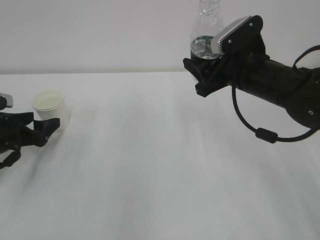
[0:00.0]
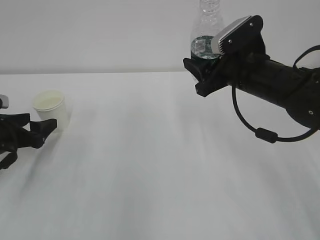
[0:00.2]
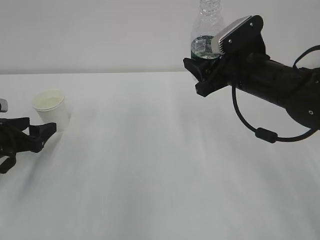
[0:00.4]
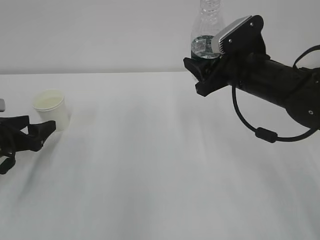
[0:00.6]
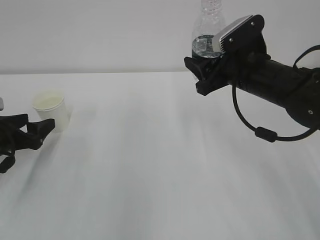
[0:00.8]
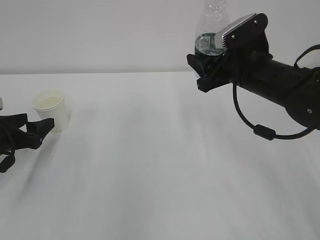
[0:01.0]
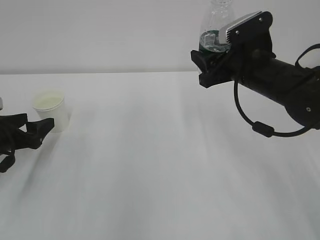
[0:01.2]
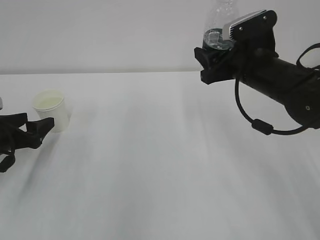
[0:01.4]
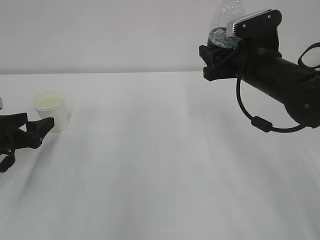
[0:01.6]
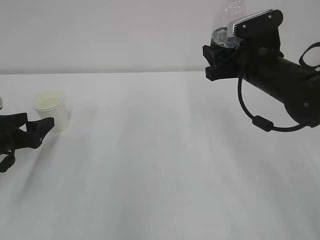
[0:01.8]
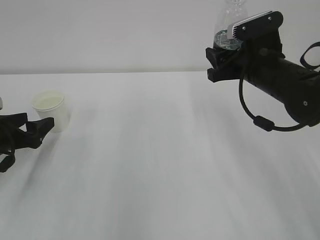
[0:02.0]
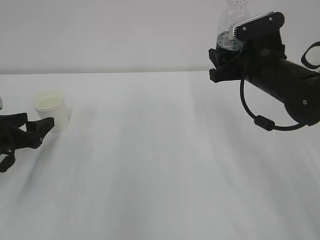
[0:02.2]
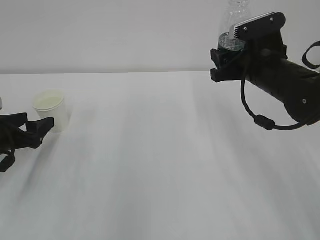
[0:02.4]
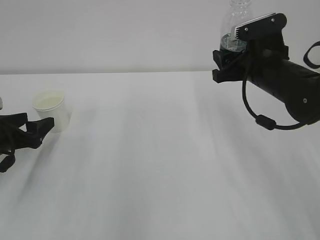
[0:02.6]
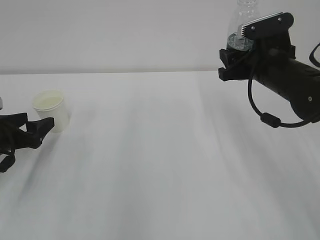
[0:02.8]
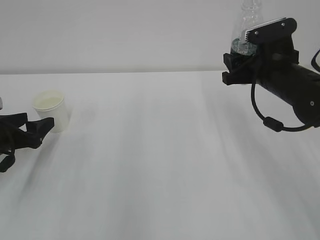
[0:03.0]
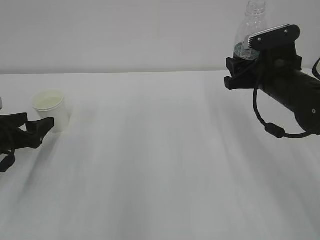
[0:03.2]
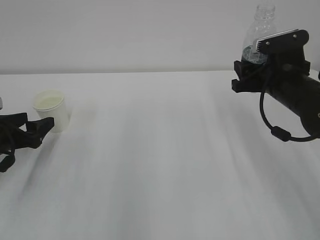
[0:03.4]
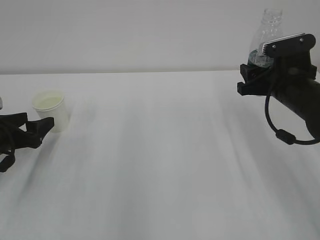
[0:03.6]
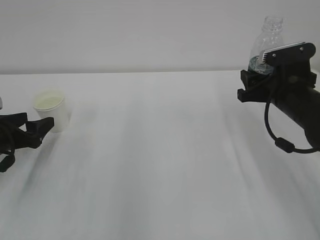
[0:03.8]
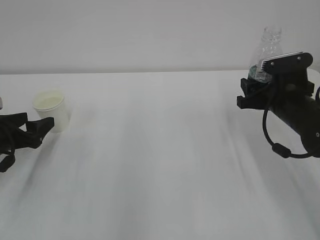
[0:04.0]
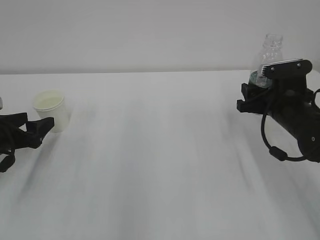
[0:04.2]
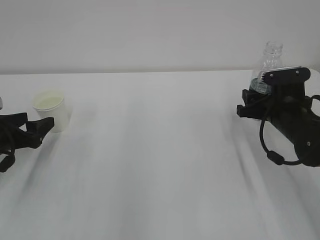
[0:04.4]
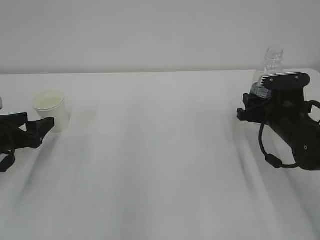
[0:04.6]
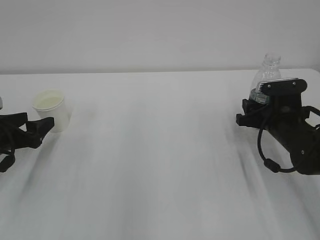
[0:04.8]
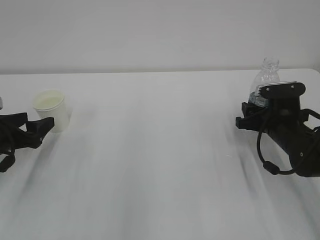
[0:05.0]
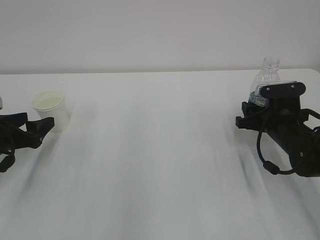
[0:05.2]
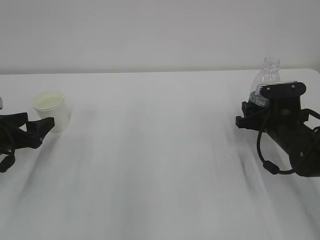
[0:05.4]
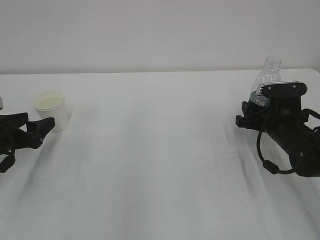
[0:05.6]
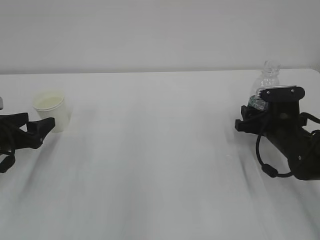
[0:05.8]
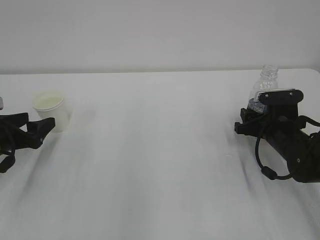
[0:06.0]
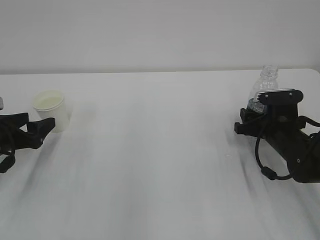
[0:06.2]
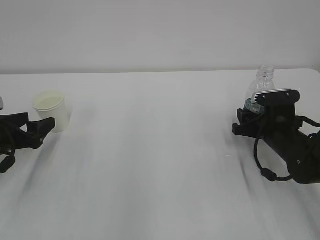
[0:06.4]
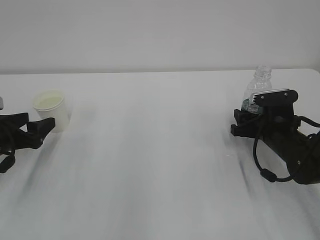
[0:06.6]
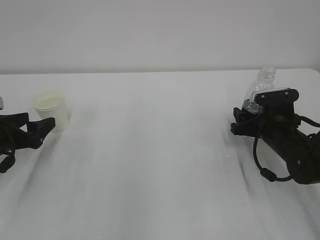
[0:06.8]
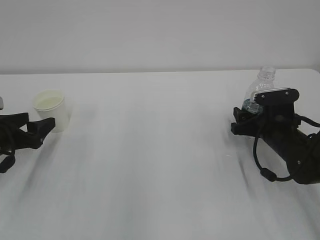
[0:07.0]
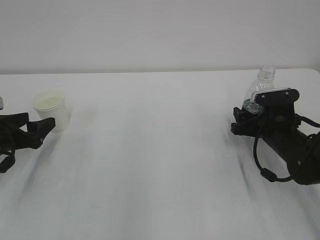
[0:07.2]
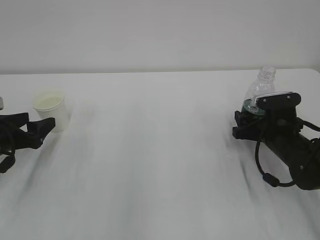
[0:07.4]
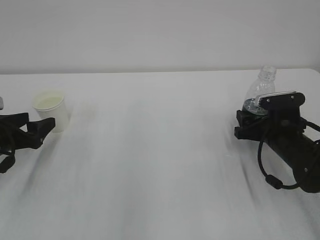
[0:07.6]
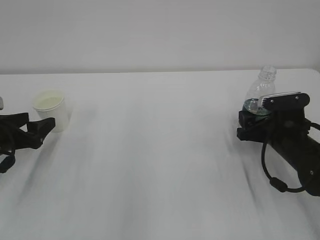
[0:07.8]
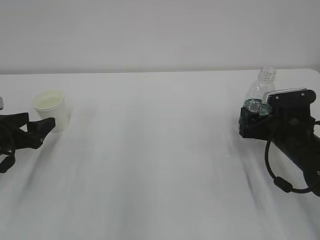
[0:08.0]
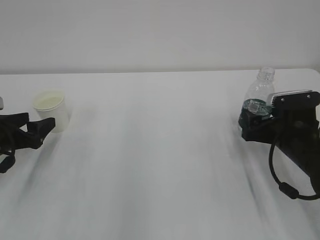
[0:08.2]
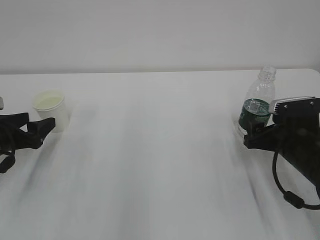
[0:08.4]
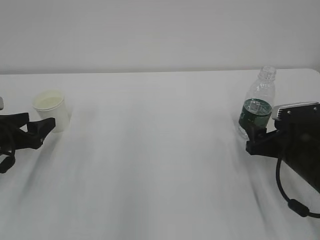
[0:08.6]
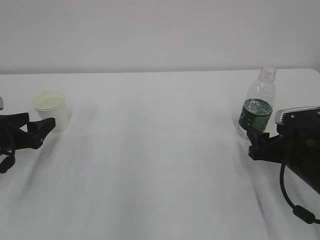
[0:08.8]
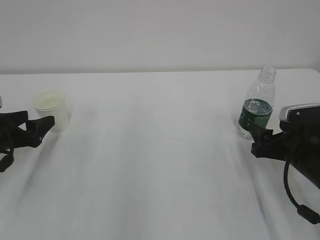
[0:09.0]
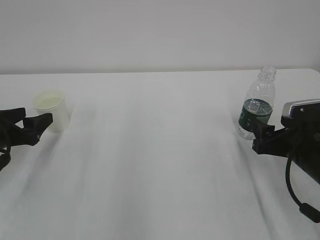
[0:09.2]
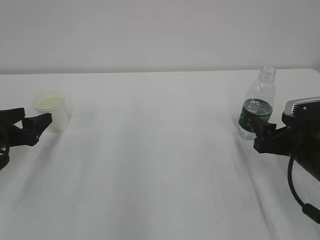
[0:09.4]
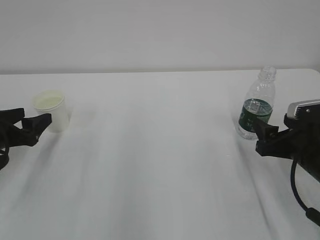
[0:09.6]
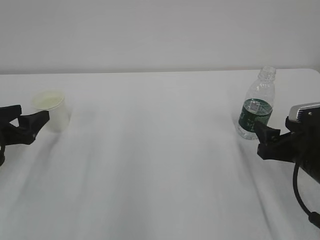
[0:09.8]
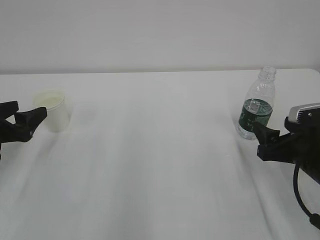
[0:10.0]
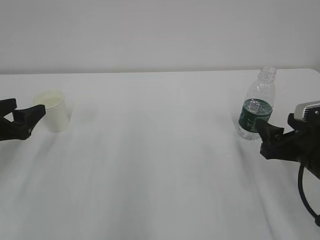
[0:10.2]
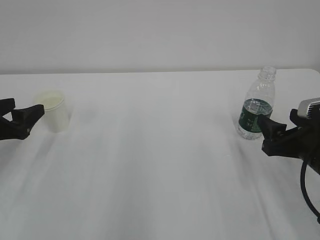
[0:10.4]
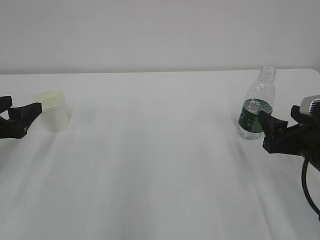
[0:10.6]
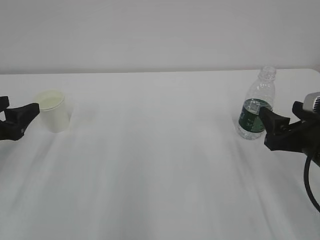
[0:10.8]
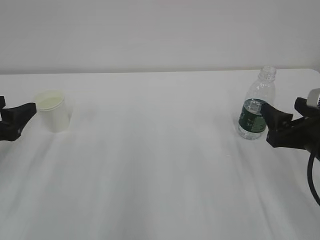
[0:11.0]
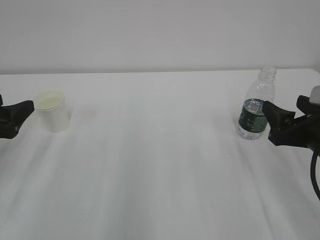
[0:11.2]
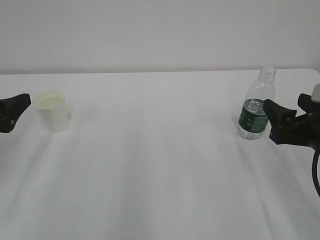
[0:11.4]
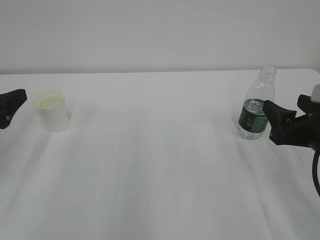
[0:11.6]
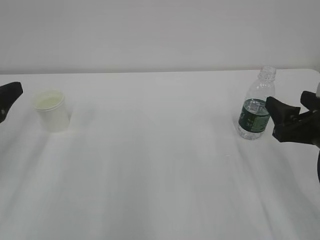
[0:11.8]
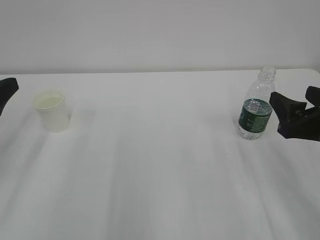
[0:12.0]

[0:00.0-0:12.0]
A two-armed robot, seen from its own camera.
0:00.0 to 0:01.6: The grippers stay close to where they were, moving slightly.
0:01.6 to 0:03.0: There are only small adjustments of the grippers.
0:03.0 to 0:04.4: The right gripper is displaced downward by roughly 10 cm.
0:04.4 to 0:06.0: The grippers move only a little.
0:06.0 to 0:07.6: The right gripper opens.
0:07.6 to 0:09.0: The right gripper heads backward, covering about 5 cm.
0:09.0 to 0:10.4: There are only small adjustments of the grippers.
0:10.4 to 0:12.0: The two grippers go approximately 5 cm upward.

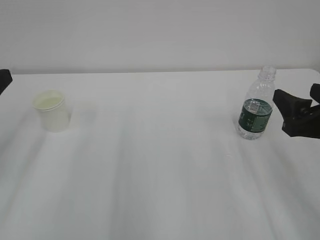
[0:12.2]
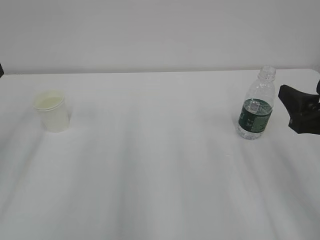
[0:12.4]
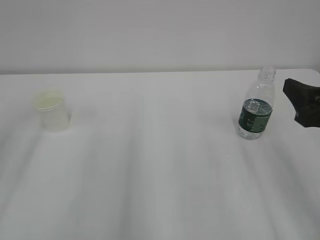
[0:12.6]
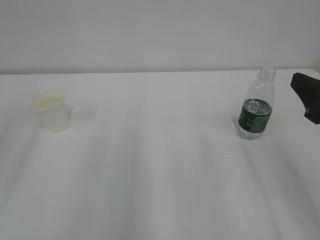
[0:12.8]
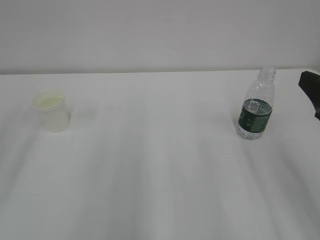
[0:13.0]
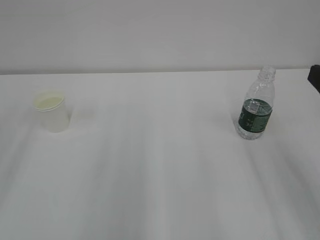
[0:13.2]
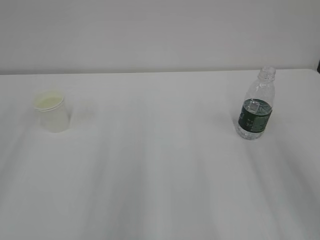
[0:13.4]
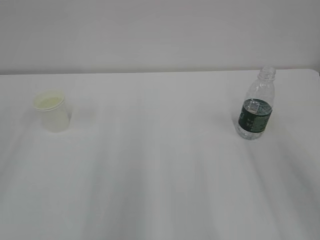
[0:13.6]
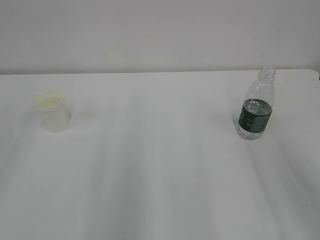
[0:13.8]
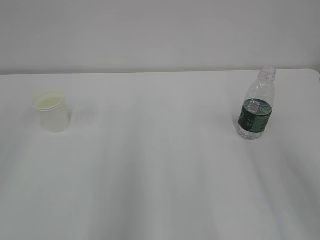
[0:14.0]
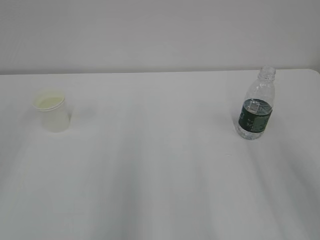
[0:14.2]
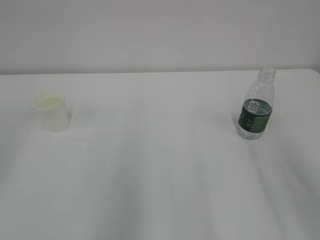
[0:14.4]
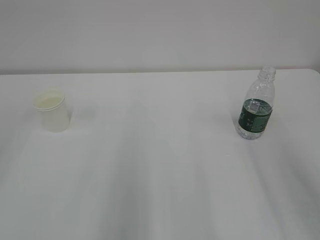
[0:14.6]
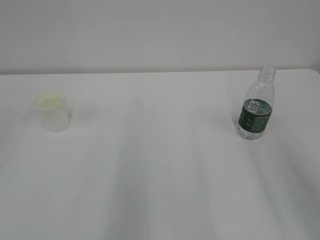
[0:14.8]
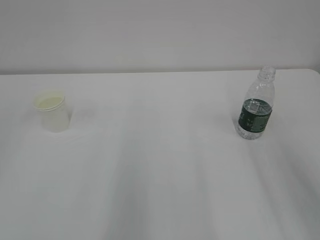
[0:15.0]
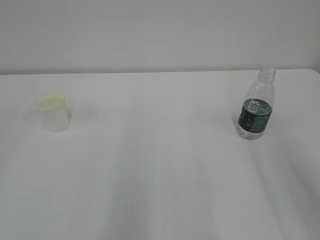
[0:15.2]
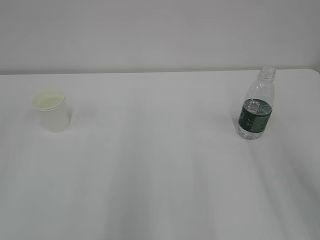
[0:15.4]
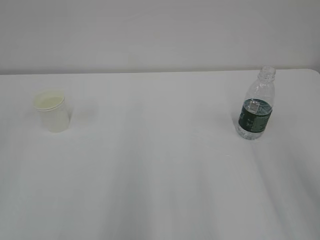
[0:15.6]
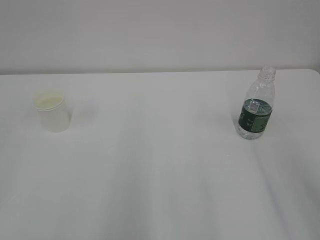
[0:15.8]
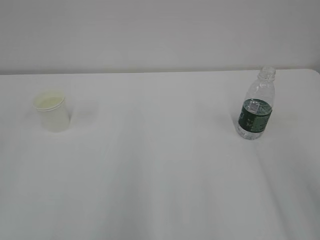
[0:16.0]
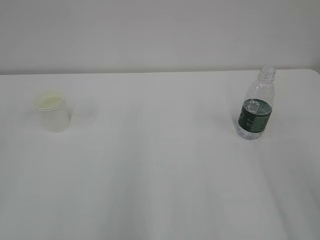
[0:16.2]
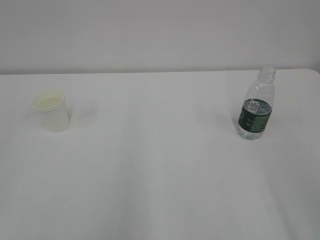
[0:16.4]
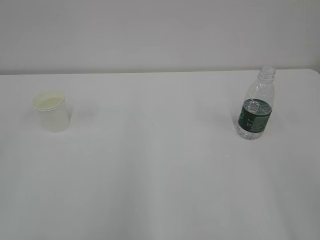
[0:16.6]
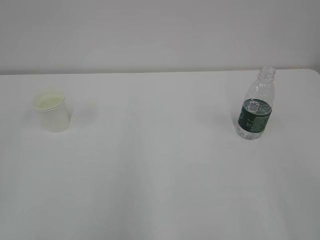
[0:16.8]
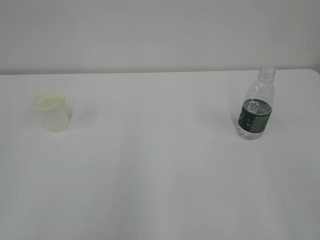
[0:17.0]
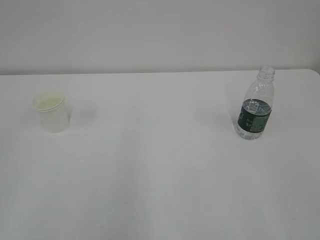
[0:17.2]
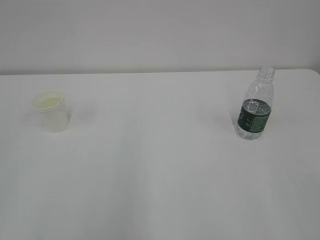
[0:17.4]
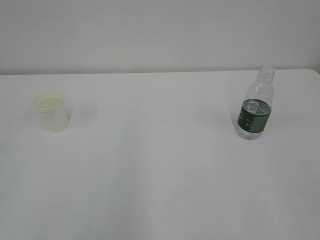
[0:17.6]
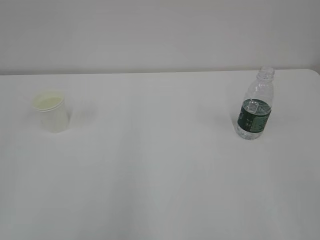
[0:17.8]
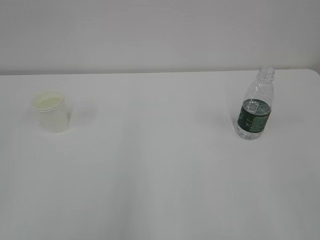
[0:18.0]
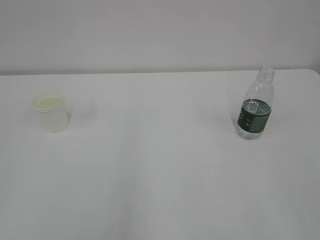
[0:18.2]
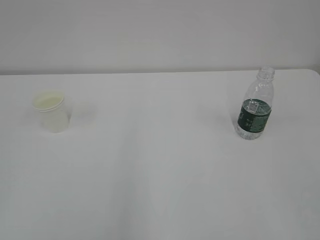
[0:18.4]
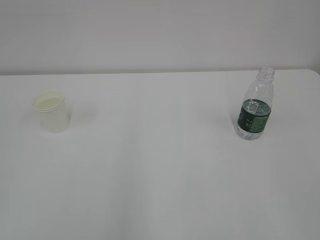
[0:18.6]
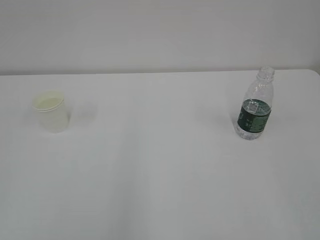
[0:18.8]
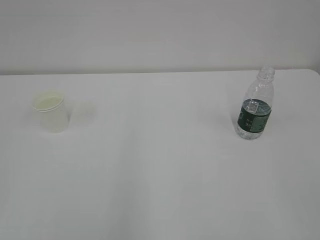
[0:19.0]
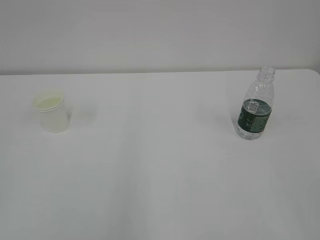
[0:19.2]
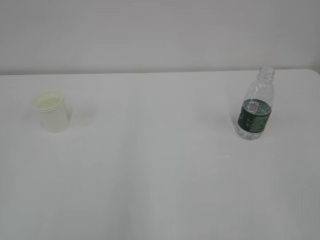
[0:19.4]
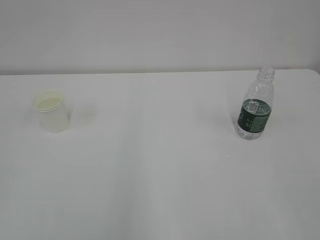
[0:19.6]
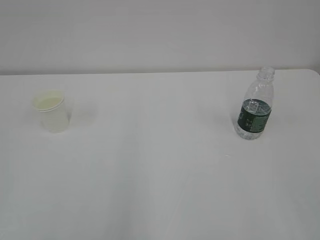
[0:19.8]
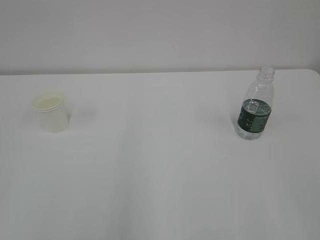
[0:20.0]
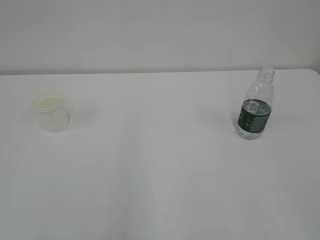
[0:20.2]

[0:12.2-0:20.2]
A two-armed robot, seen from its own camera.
0:12.2 to 0:13.8: The right gripper goes approximately 10 cm upward and backward.
